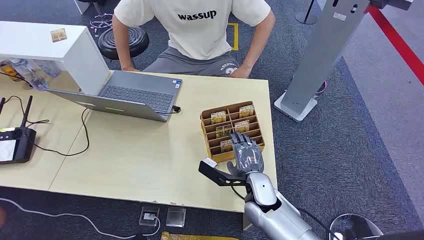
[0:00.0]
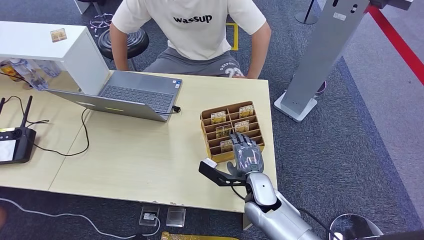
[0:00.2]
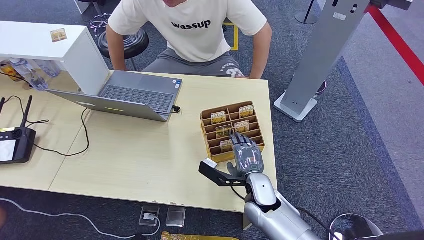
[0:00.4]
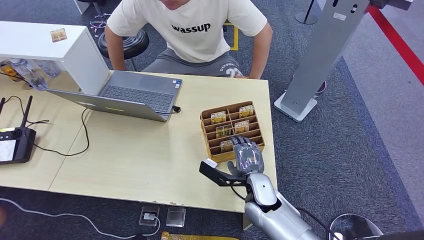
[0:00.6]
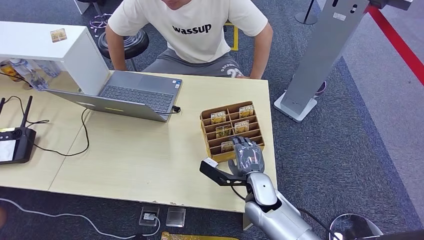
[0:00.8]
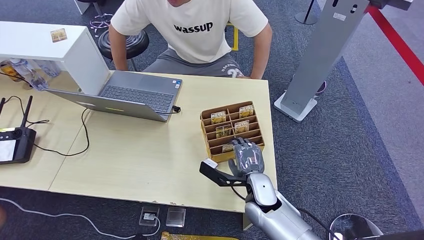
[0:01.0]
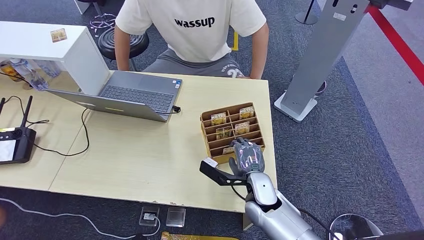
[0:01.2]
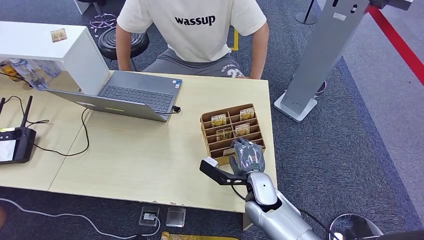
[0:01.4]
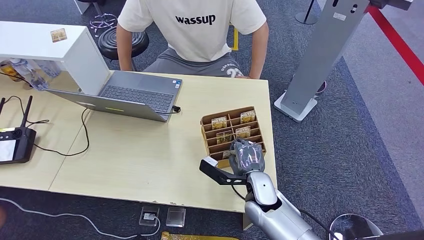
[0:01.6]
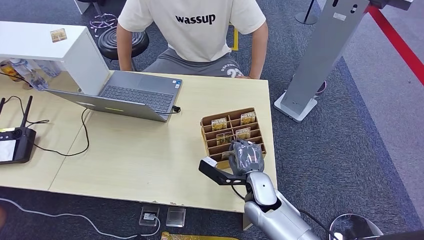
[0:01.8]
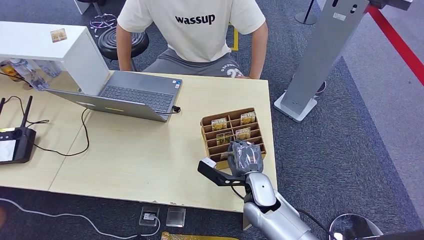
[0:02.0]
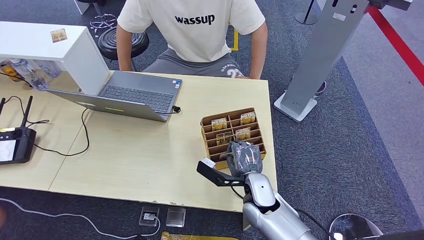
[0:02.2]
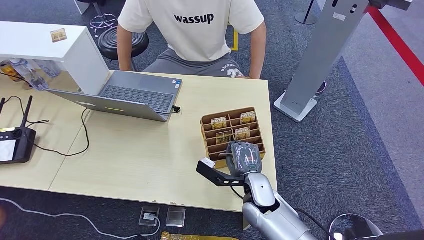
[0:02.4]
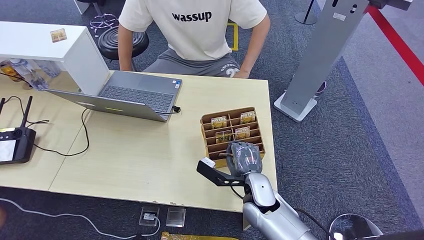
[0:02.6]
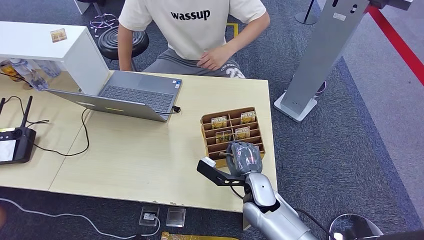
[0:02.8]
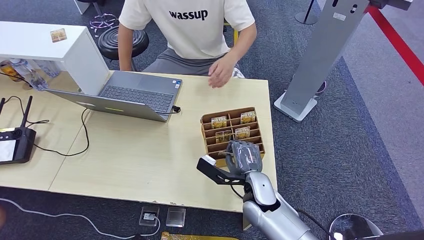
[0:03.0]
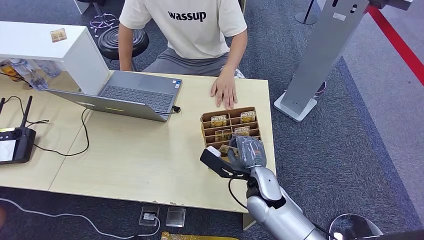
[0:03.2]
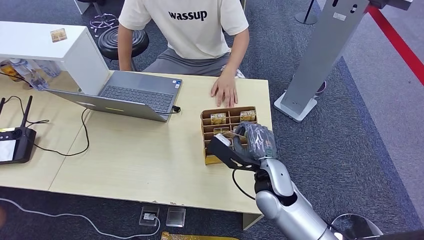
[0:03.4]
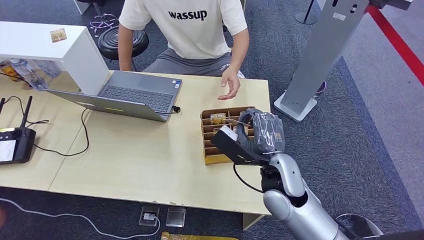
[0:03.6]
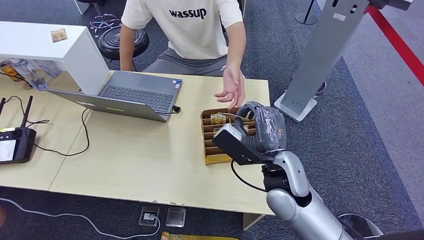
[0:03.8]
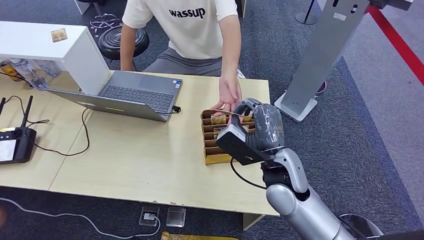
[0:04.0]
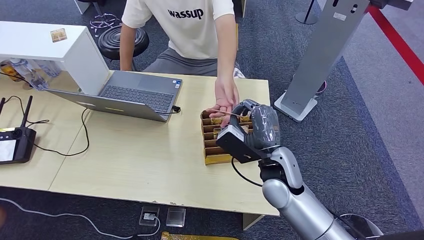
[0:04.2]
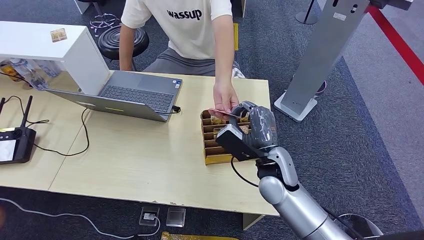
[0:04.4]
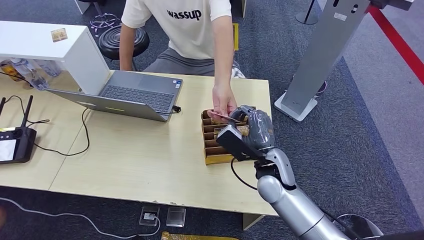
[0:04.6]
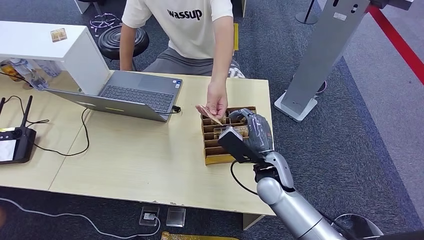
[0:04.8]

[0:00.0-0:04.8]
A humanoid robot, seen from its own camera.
Step, 0:00.0 to 0:03.2: Pick up the room card from the card holder.
Step, 0:04.0 to 0:04.8: Hand the room card to the target.
0:01.6 to 0:03.2: There are only small adjustments of the hands.
0:03.2 to 0:04.8: The right hand reaches approximately 10 cm upward, then returns.
